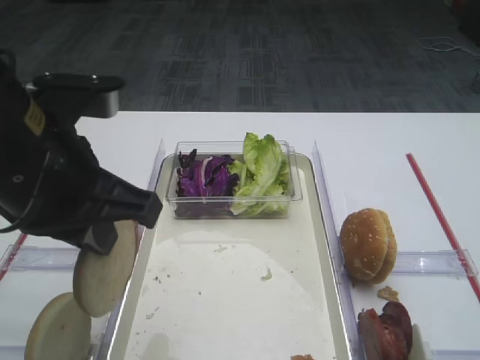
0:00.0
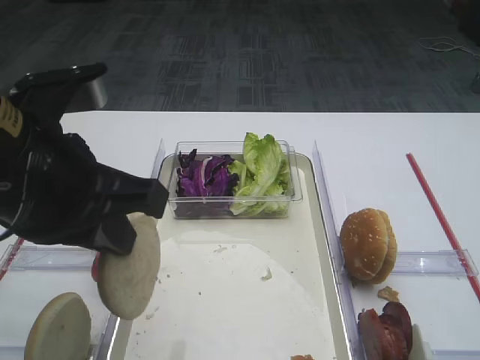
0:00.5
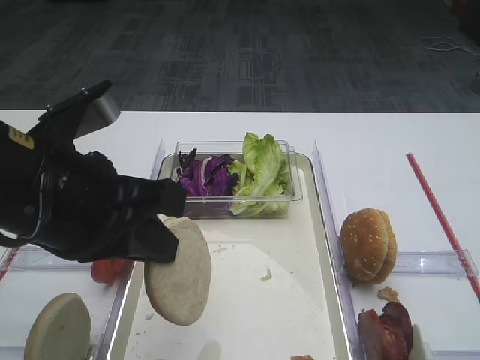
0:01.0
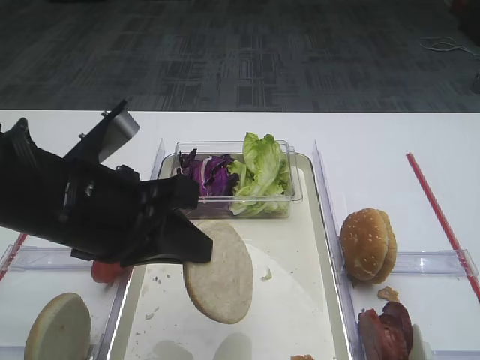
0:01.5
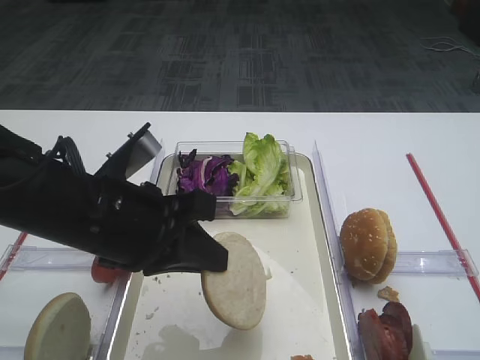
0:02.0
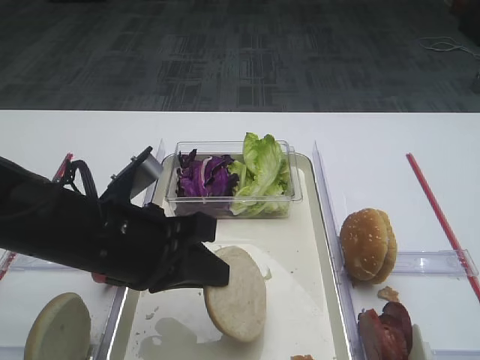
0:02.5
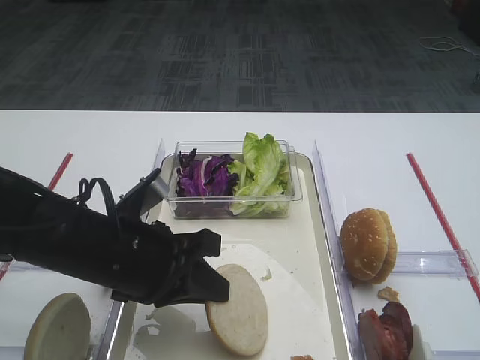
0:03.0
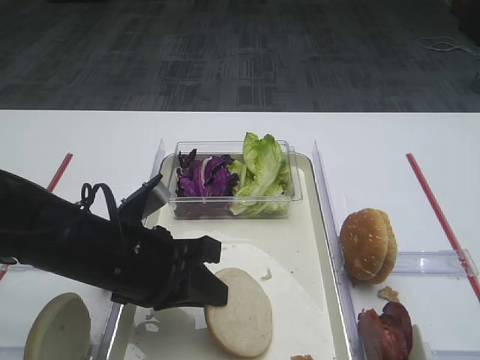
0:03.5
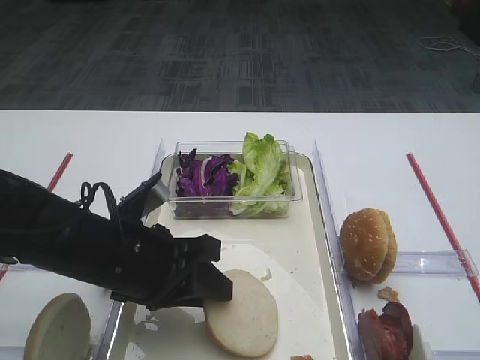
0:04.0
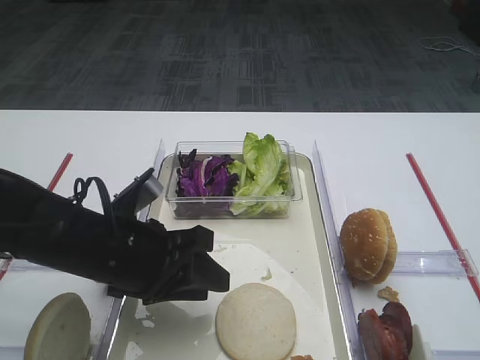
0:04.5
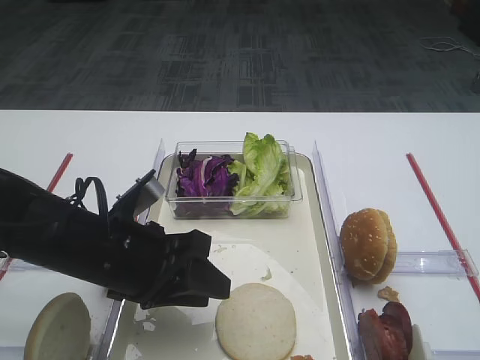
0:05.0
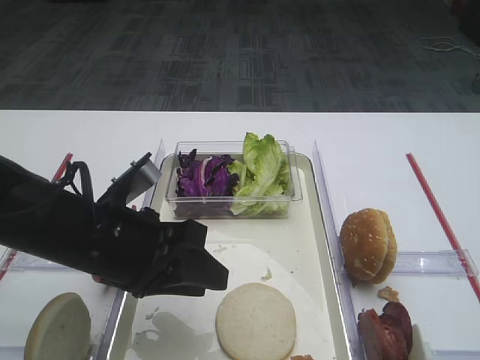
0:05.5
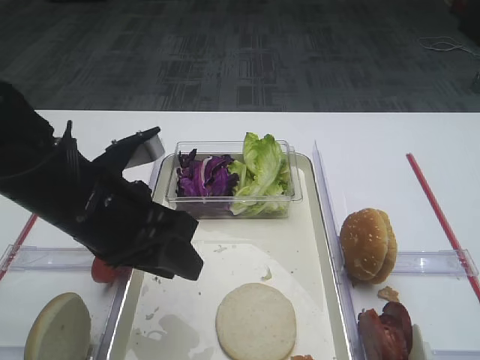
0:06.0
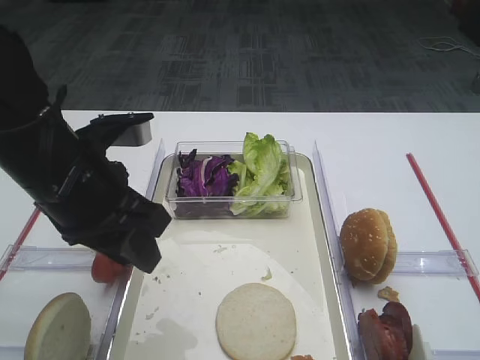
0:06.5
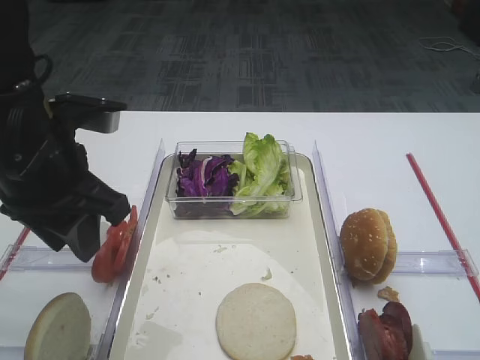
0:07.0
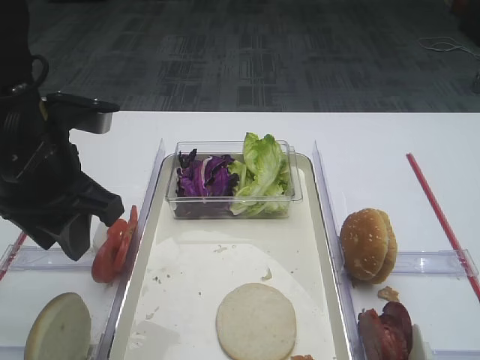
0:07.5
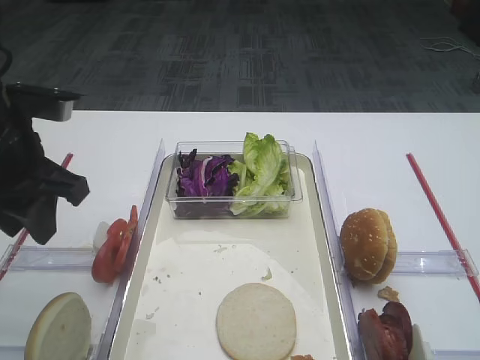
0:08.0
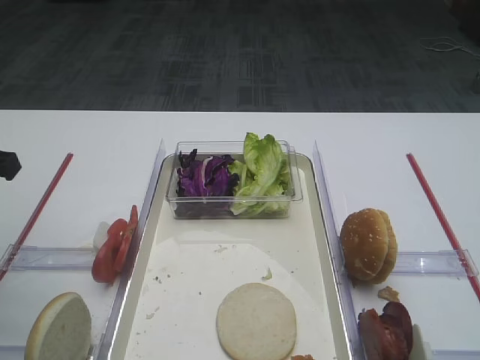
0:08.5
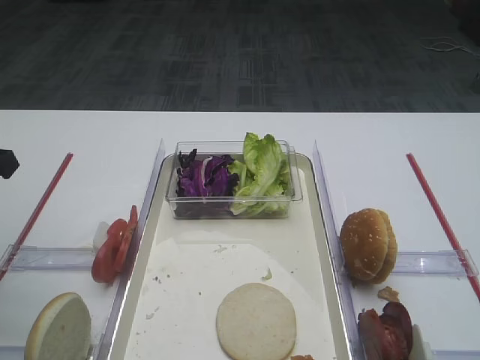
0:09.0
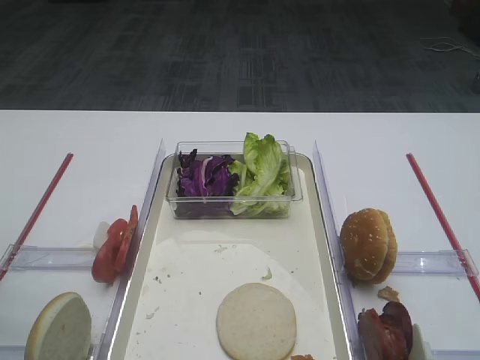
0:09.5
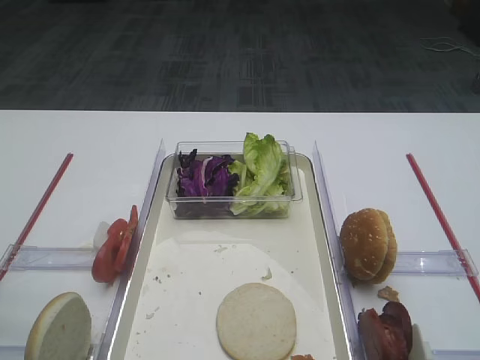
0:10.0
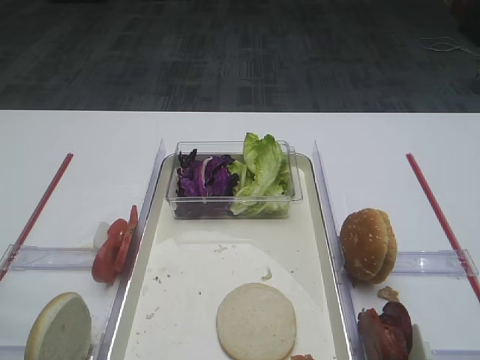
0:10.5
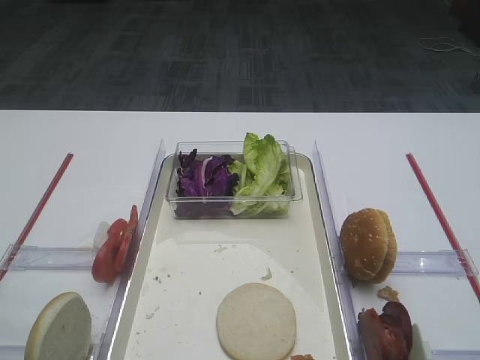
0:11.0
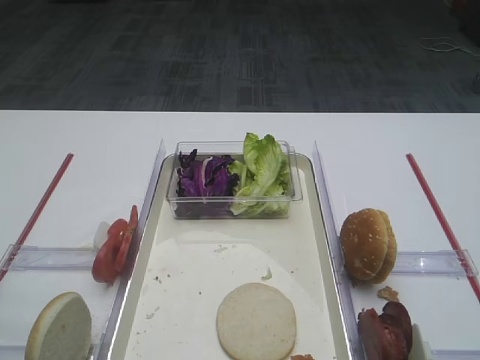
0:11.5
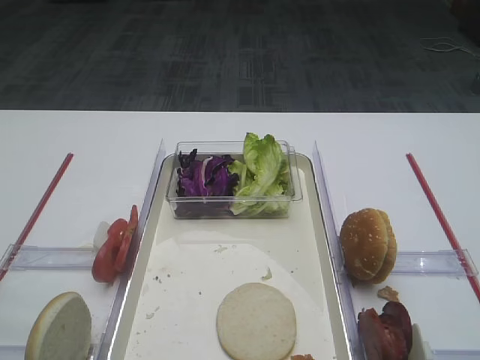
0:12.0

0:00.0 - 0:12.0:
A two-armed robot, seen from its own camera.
Step, 0:00.0 - 0:05.0: Place the bread slice on the tray with the left gripper.
0:00.0 - 0:02.0: The left gripper goes some 10 cm downward.
0:02.0 - 0:04.0: The left gripper moves downward, roughly 5 cm, and opens.
0:04.0 - 0:06.0: The left gripper goes about 5 cm upward.
0:06.0 - 0:08.0: The left gripper goes about 10 cm to the left and upward.
0:08.0 - 0:10.0: The left gripper goes about 15 cm backward and to the left.

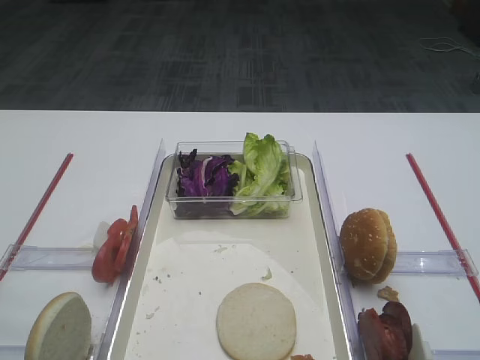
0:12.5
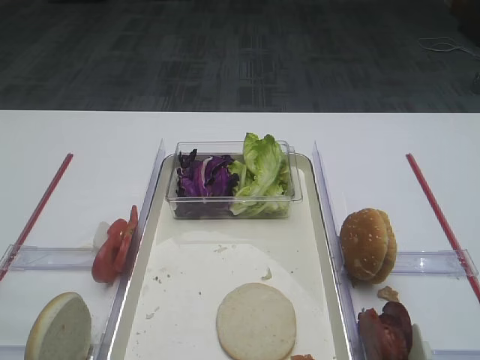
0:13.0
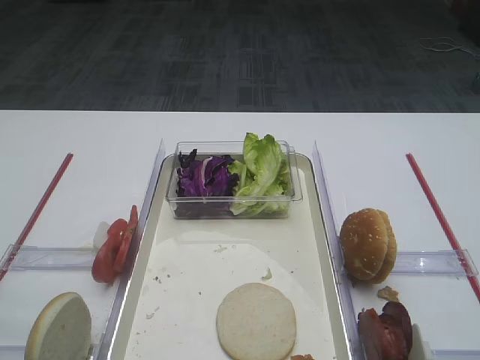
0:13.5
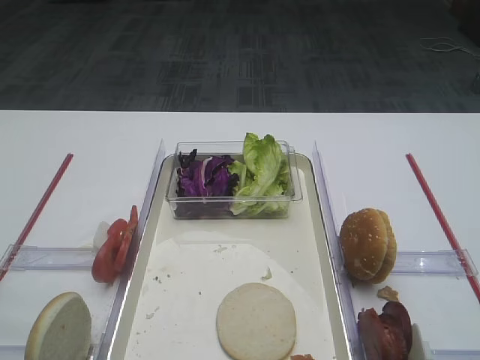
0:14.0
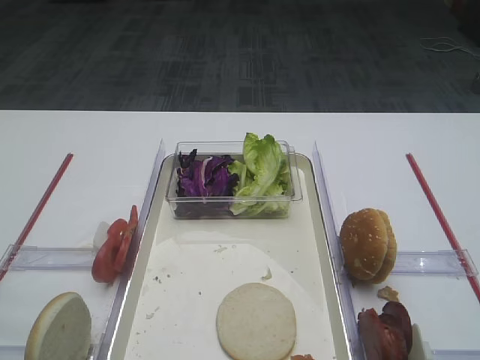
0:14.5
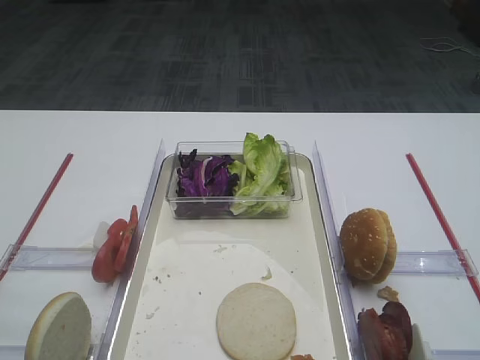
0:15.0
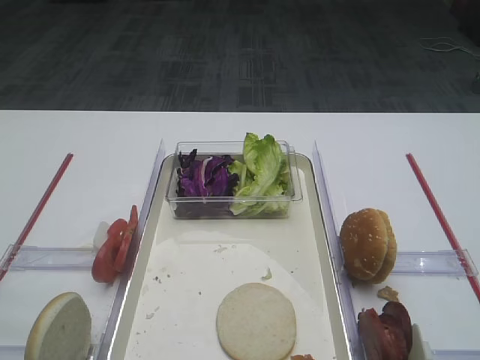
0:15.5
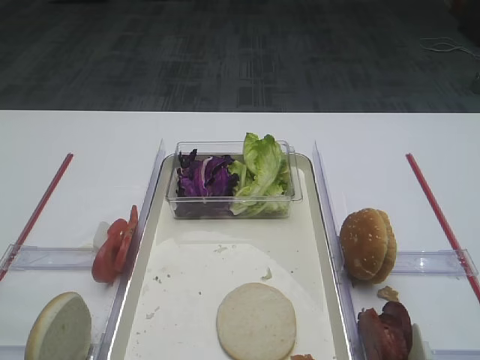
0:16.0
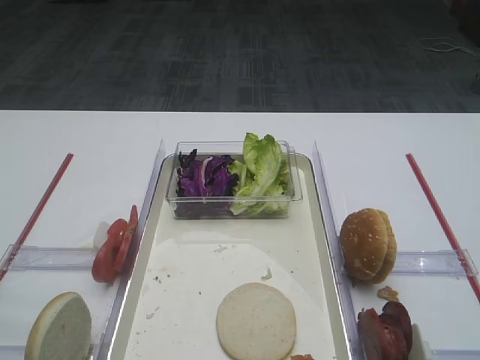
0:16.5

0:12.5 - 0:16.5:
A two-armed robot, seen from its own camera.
0:14.5 - 0:16.5: Both grippers stay about where they are.

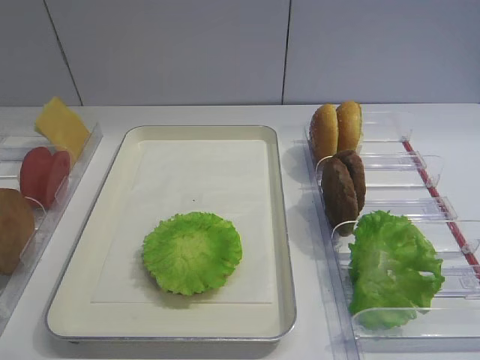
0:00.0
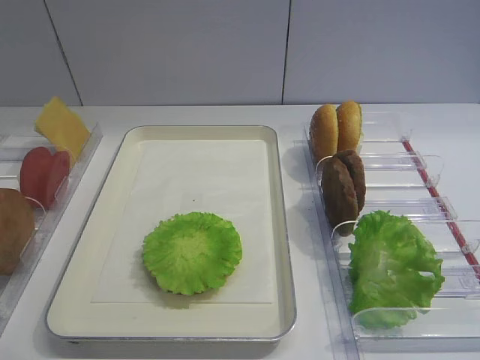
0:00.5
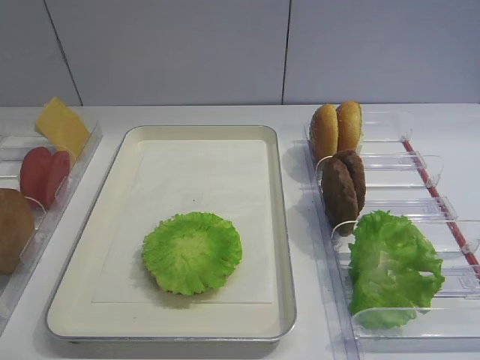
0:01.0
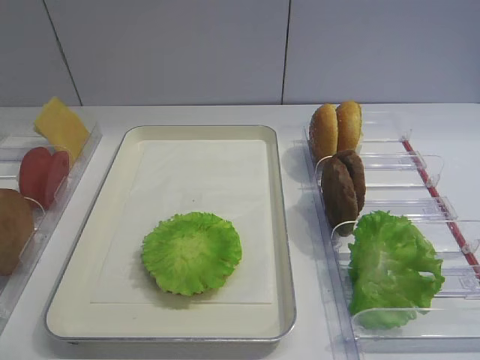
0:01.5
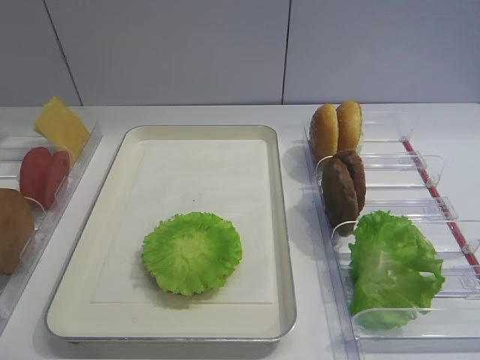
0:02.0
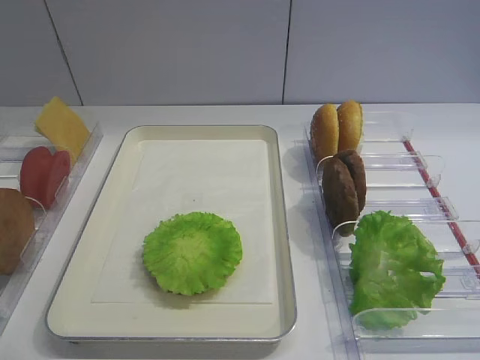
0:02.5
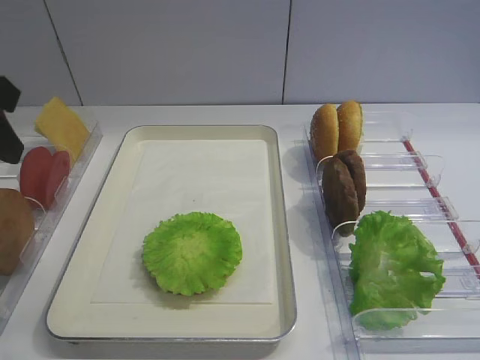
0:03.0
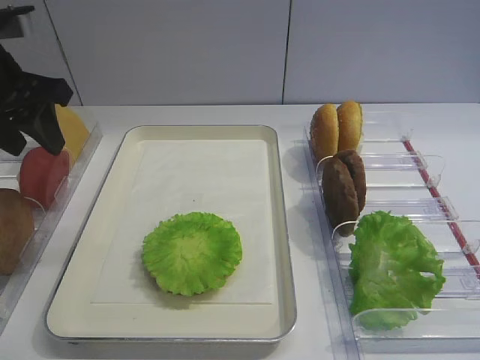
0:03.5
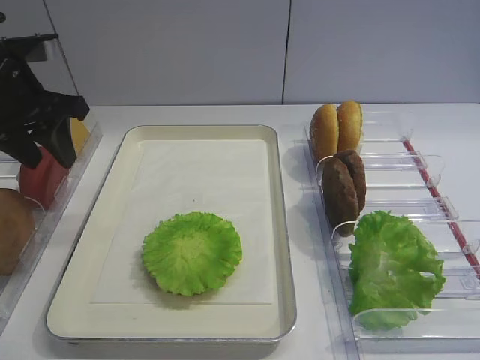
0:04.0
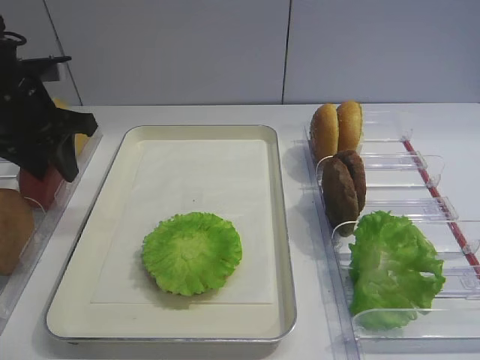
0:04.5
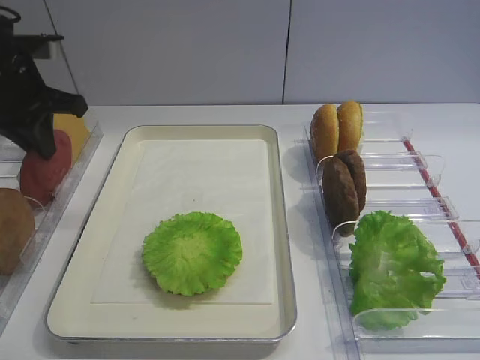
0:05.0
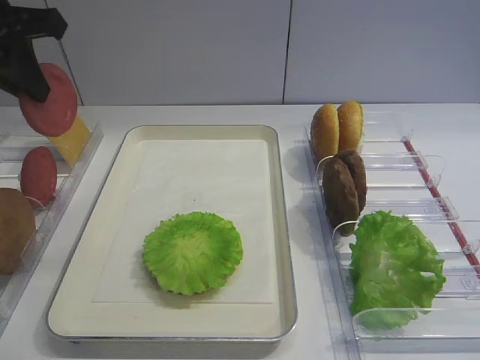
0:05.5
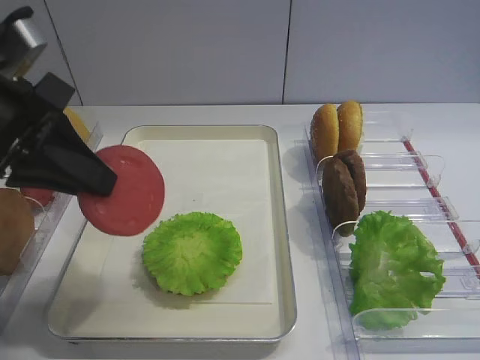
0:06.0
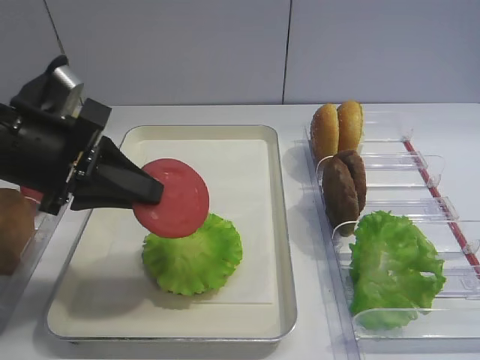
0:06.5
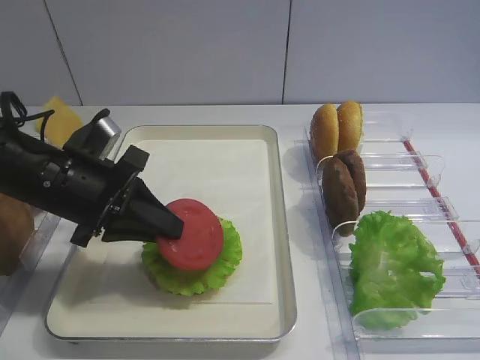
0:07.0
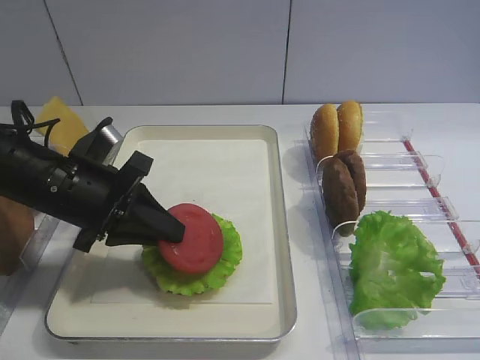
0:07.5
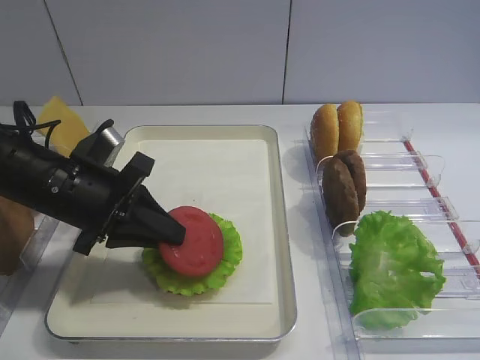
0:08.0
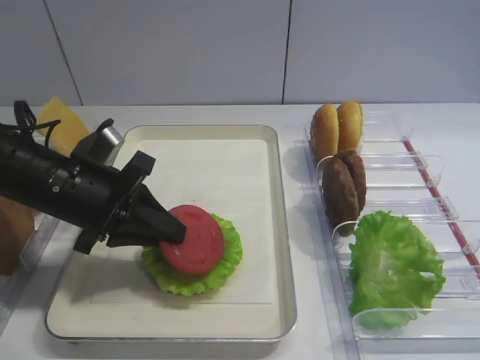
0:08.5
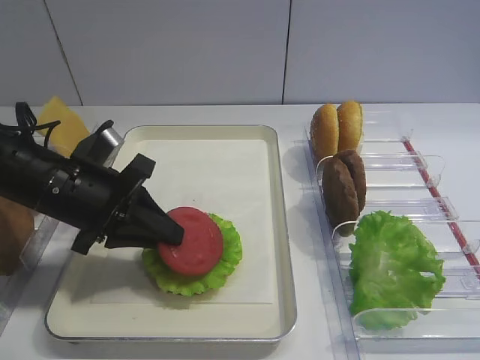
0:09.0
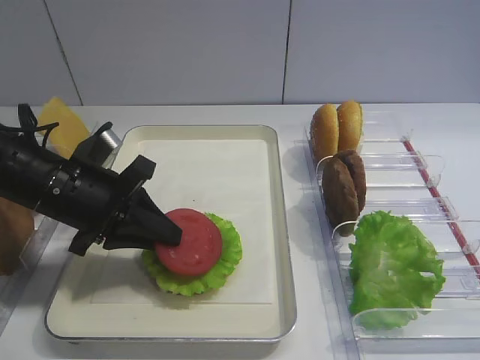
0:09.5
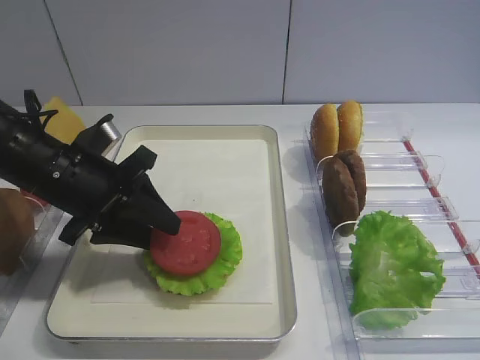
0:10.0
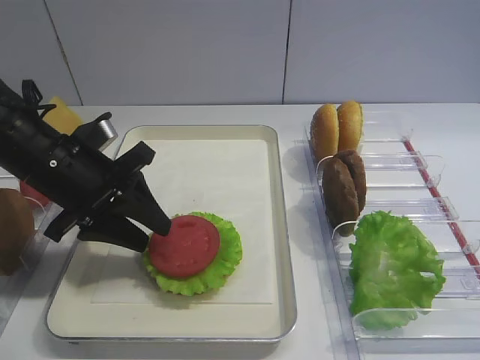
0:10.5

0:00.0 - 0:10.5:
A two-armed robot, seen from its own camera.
Step, 0:00.0 - 0:05.0: Pick up the tomato slice with the left gripper.
0:02.0 - 0:04.0: The left gripper shifts about 30 cm forward.
0:04.0 - 0:06.5: The left gripper shifts roughly 10 cm backward and to the right, and closes its fingers.
0:06.5 - 0:08.5: The left gripper travels downward by about 5 cm.
0:08.5 - 0:10.5: The left gripper opens.
